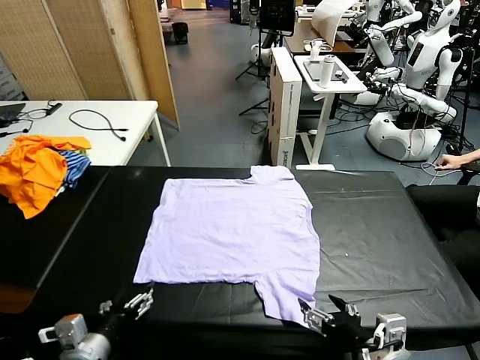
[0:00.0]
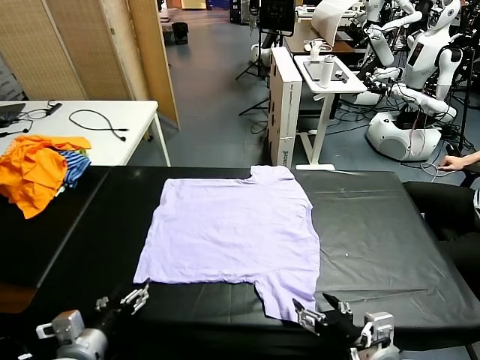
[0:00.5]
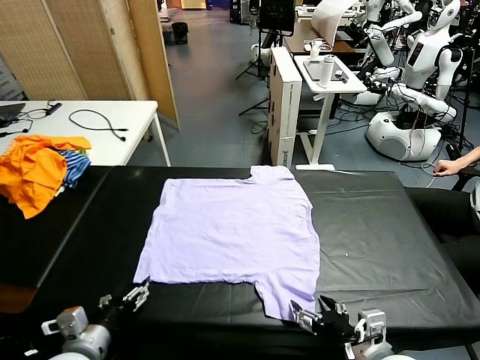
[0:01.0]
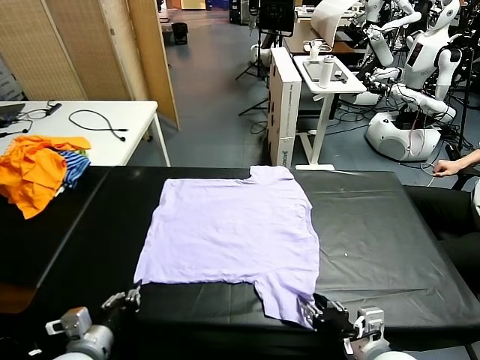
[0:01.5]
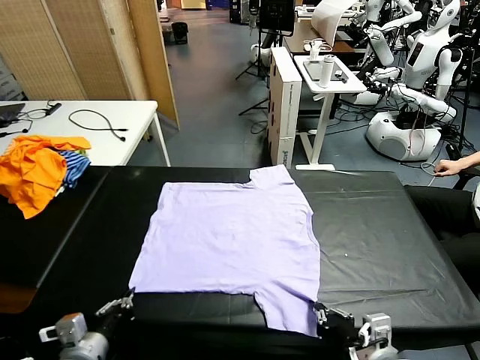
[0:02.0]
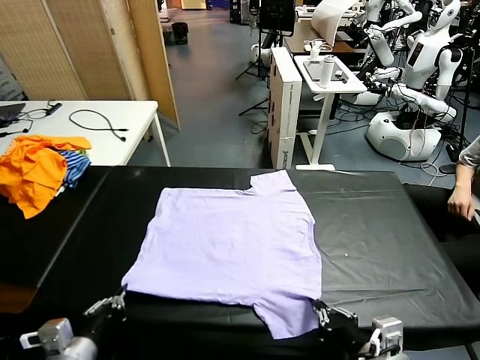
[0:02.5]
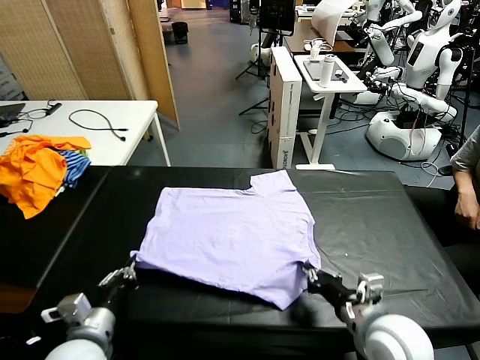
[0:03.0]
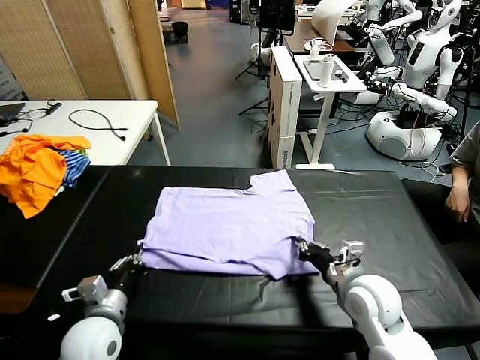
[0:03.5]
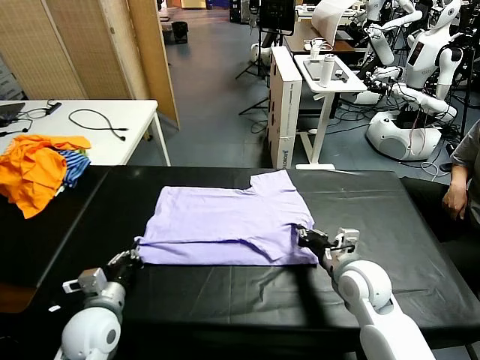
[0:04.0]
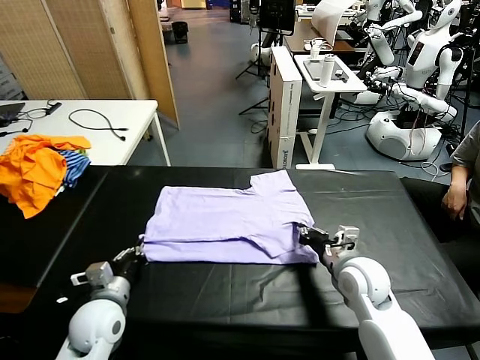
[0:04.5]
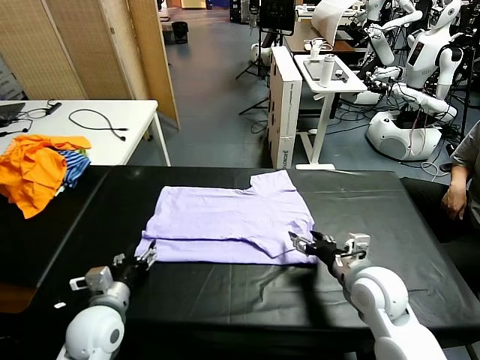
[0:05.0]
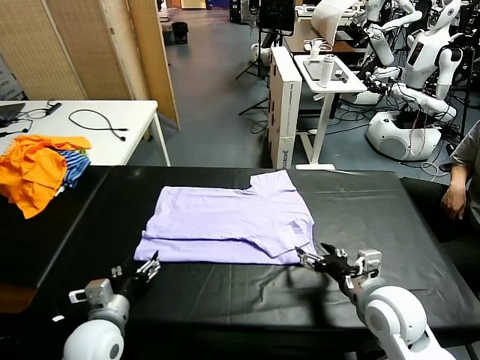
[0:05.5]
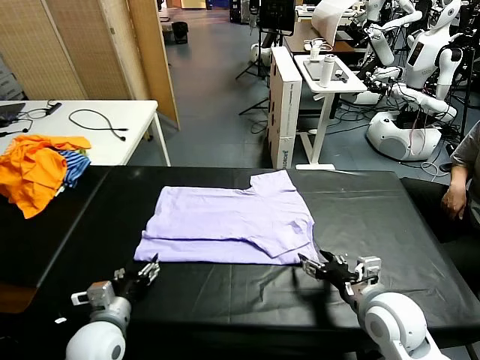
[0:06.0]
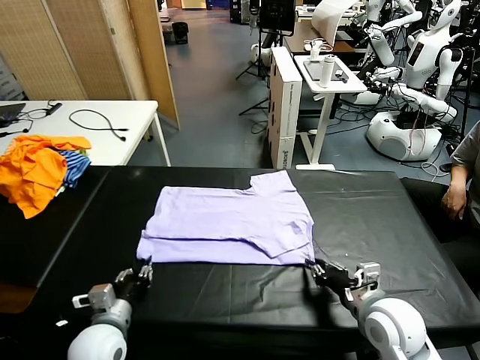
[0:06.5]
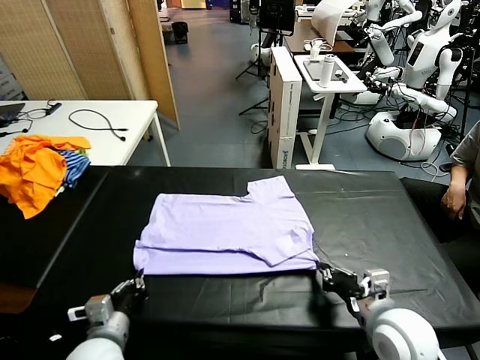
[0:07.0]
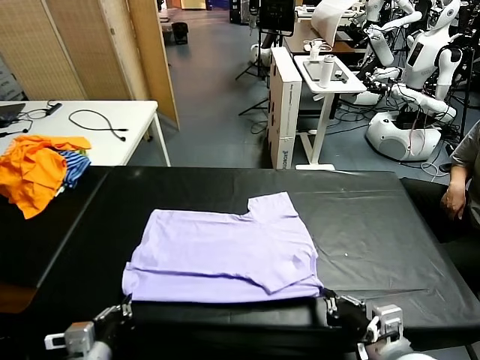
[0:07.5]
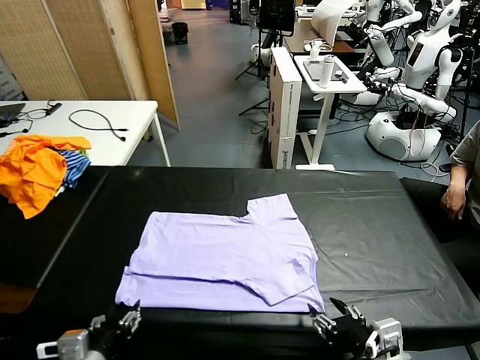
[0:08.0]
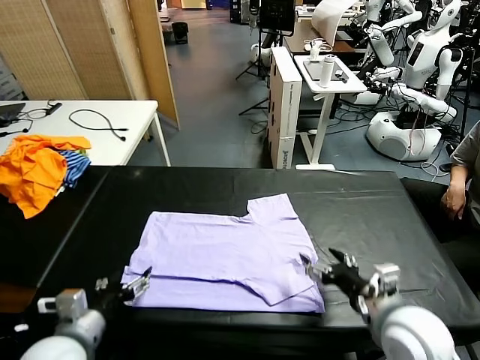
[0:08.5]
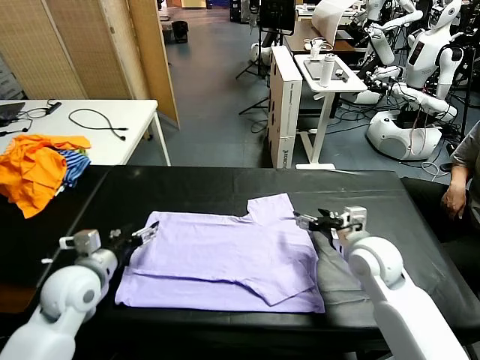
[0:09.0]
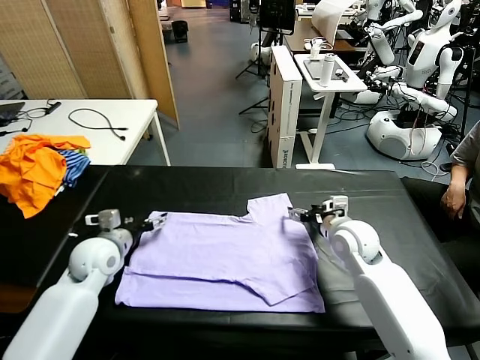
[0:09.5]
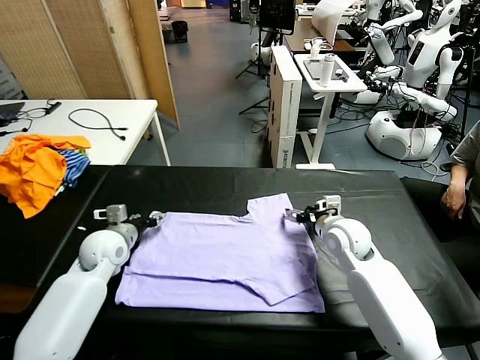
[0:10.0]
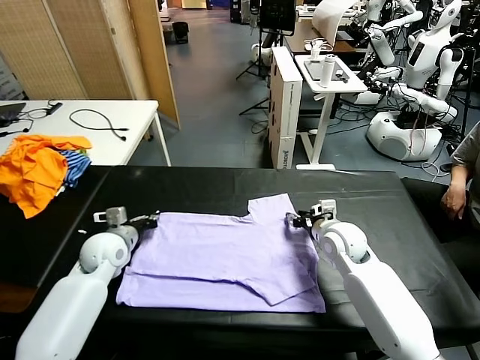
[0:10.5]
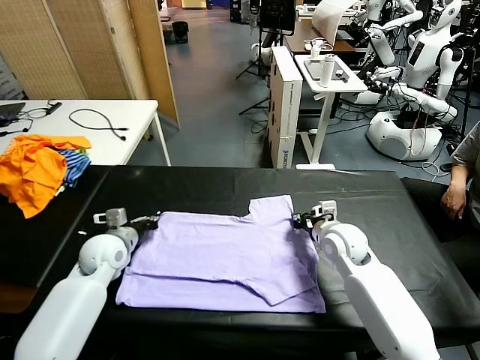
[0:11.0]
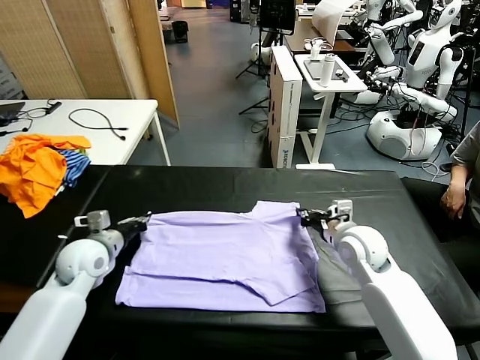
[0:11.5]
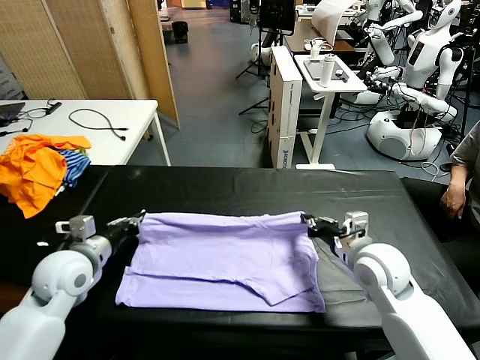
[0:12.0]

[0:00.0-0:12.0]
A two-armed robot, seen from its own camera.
Task of the whole recording: fold and organize the clothes.
Step, 0:00.0 to 0:01.5: use both grippers simultaneously to clamp the lower edge of the clothing fabric.
Step, 0:02.0 to 0:05.0: use both grippers to drag the lower edge of the fabric forward and fold it over the upper edge.
Step, 0:05.5 to 0:08.0: Drag the clothes downward with both gripper.
Step, 0:08.5 to 0:10.5: use both grippers simultaneously to clamp the upper edge of the clothing fabric.
0:02.0 to 0:04.0: The right gripper goes about 20 cm forward, while the left gripper shifts about 10 cm forward.
0:04.0 to 0:06.0: The left gripper opens up. The right gripper heads backward, covering about 10 cm, and opens up.
0:06.0 to 0:08.0: The grippers both shift backward and upward by roughly 10 cm. The left gripper closes and opens again. The right gripper closes, then reopens.
0:08.0 to 0:10.0: Both grippers travel together forward, some 30 cm.
0:10.0 to 0:12.0: The right gripper travels backward by roughly 10 cm, and closes its fingers. Meanwhile the left gripper goes roughly 10 cm backward and upward, and closes.

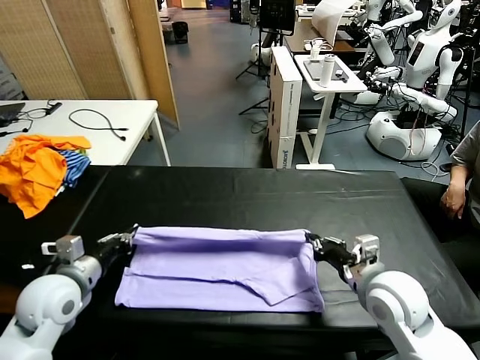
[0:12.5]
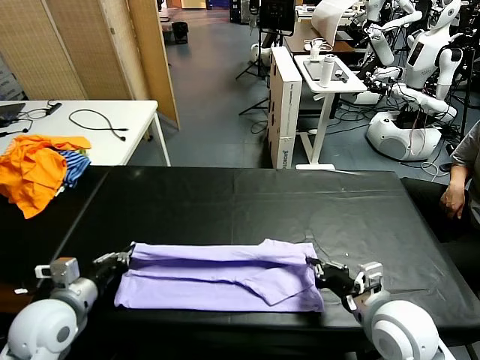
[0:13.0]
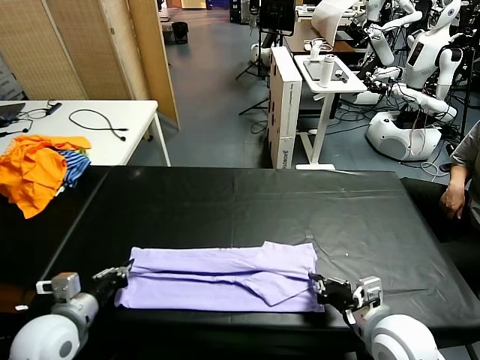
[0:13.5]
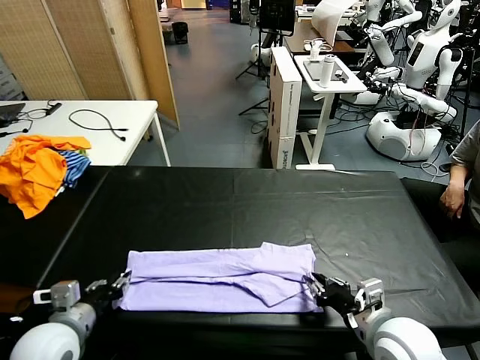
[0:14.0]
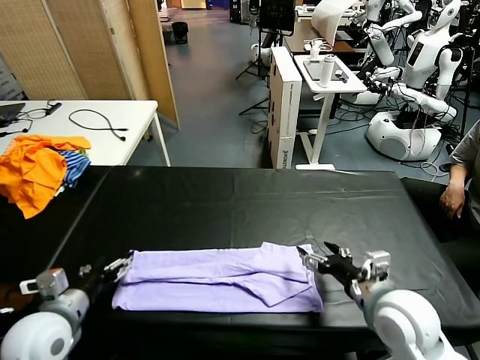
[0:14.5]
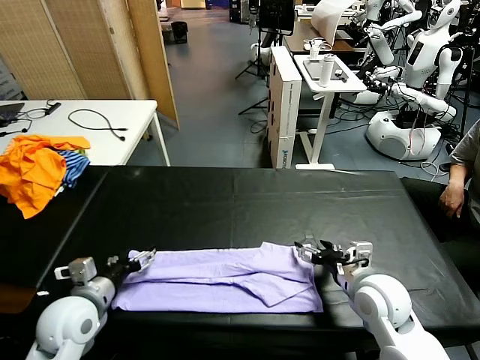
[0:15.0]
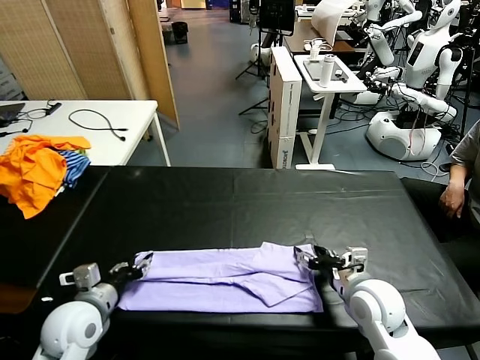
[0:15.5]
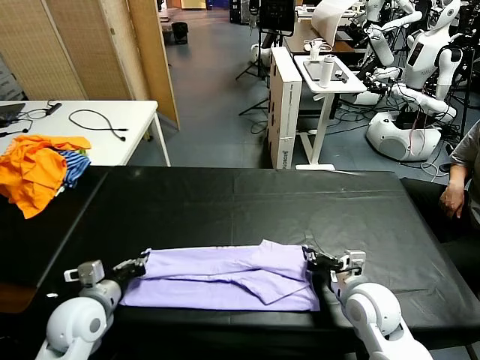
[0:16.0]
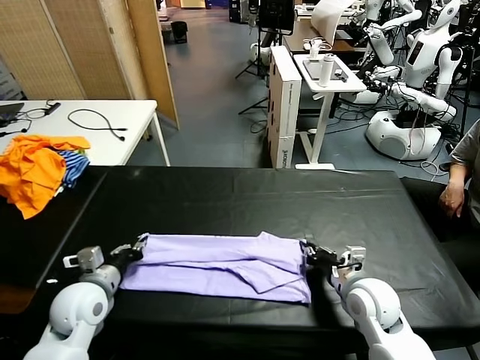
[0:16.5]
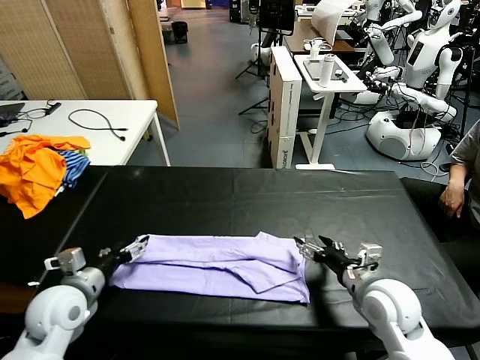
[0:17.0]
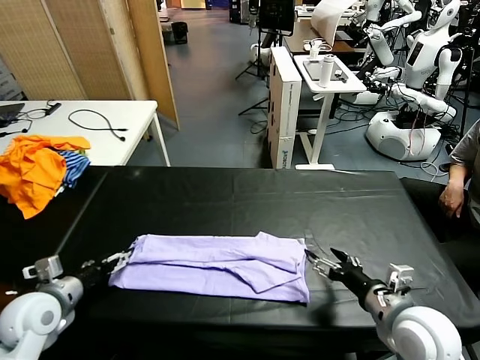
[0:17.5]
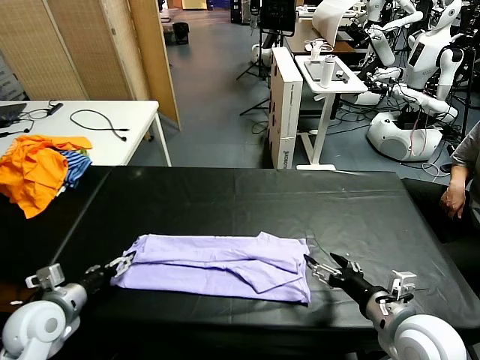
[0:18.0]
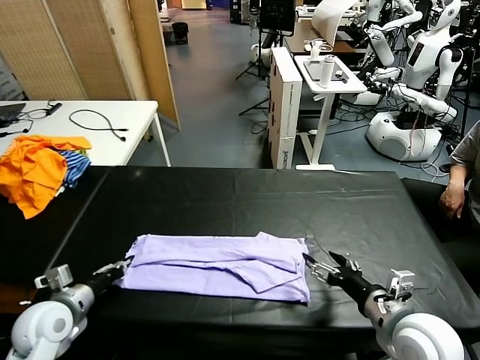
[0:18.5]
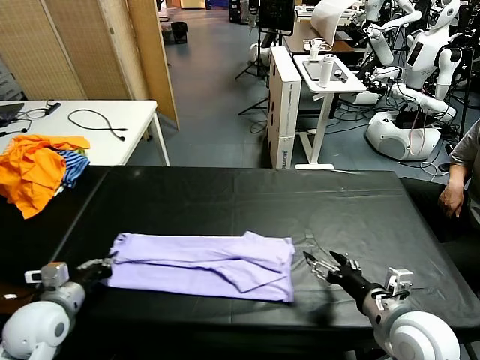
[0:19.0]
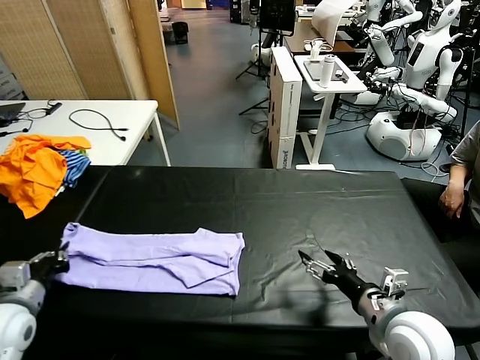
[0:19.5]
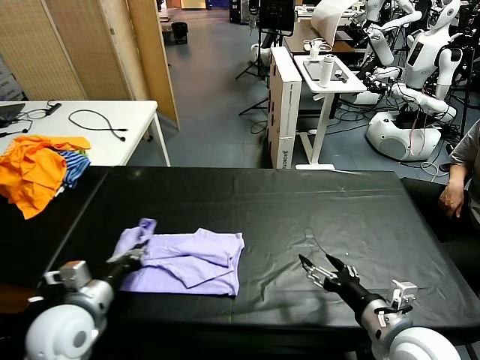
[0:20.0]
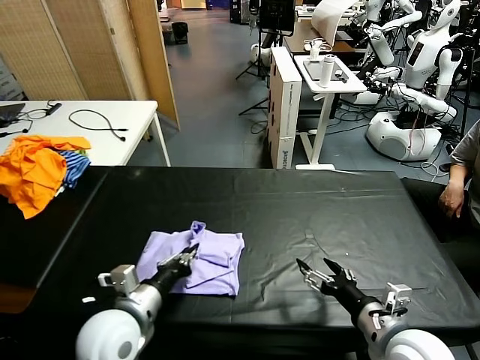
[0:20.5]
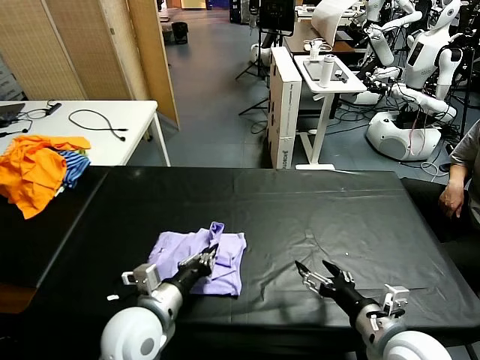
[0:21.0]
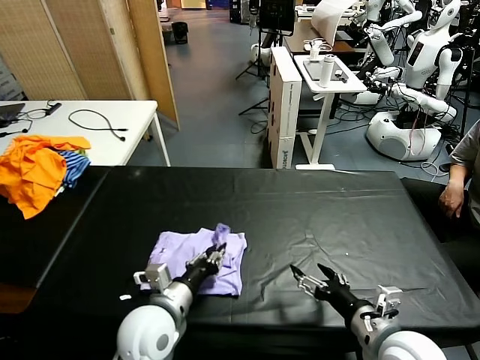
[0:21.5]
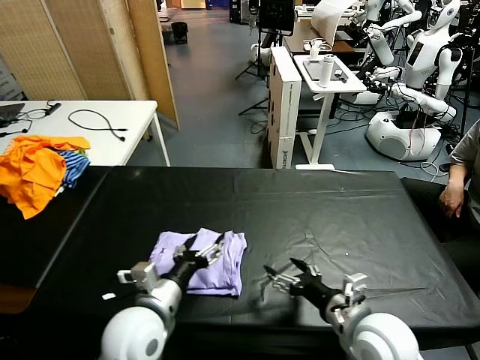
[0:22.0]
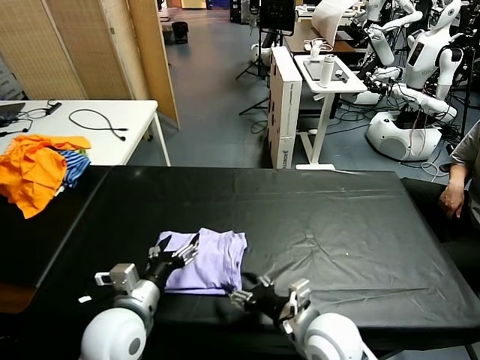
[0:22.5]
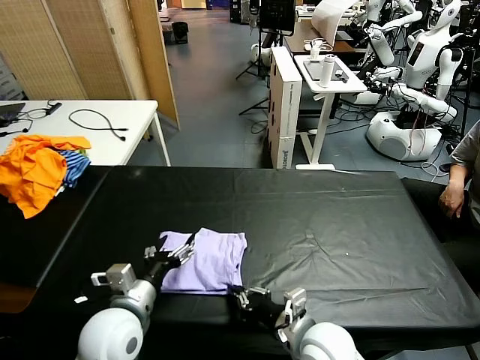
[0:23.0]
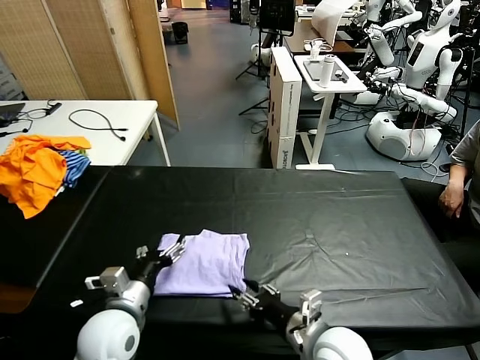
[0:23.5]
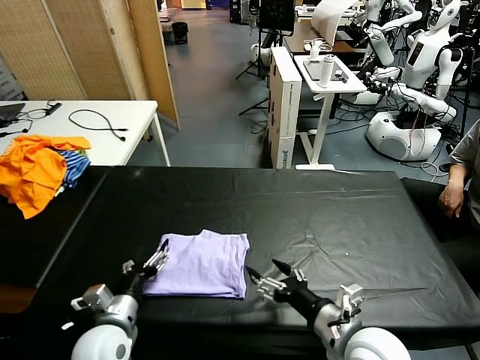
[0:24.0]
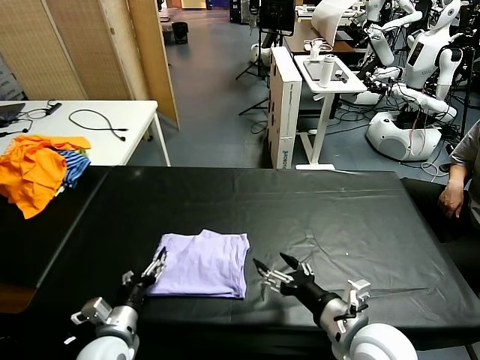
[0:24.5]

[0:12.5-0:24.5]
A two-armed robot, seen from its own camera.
Task of the whole recording: fold and organize the clothes.
Step, 0:12.5 to 0:17.0: use both grippers to drag the upper edge of the fabric backward and fold it over the lower edge.
Step, 0:17.5 to 0:18.5: use the left gripper to clamp the left edge of the fabric.
Step, 0:19.0 to 0:23.5: use the left gripper to drag the left edge of the fabric to the left and folds it over the right edge.
0:12.5 to 0:14.5: The right gripper opens. The left gripper moves backward, some 5 cm, and opens its fingers.
0:14.5 to 0:16.5: The right gripper travels downward by about 5 cm, and closes. The left gripper moves forward, roughly 5 cm, and closes.
0:16.5 to 0:18.5: The left gripper shifts approximately 5 cm to the left, and opens, then closes once more, while the right gripper heads backward and upward, covering roughly 10 cm, and opens up.
0:18.5 to 0:20.5: The left gripper is displaced to the right by roughly 15 cm.
0:20.5 to 0:22.5: The right gripper is displaced to the left by approximately 10 cm. Meanwhile the left gripper opens up.
0:22.5 to 0:24.5: The left gripper moves downward and to the left, some 10 cm, while the right gripper goes roughly 5 cm to the right, and closes and opens again.

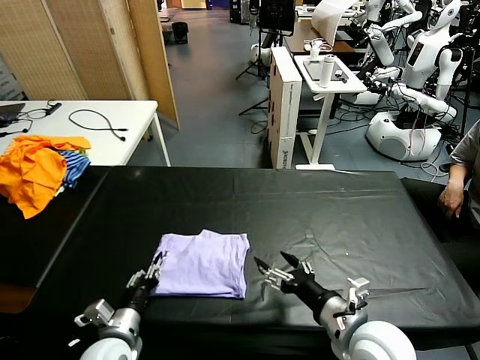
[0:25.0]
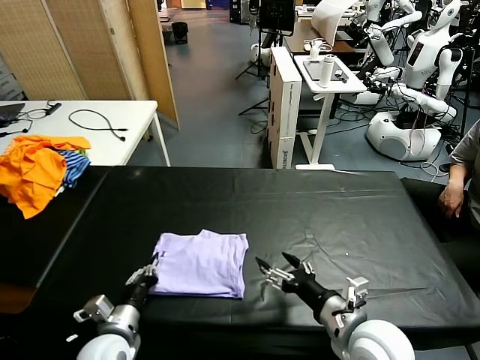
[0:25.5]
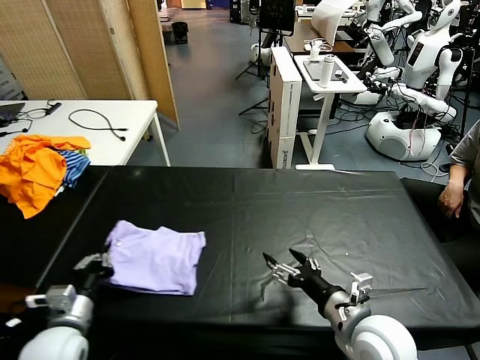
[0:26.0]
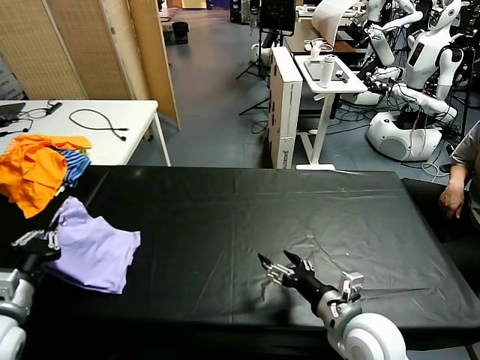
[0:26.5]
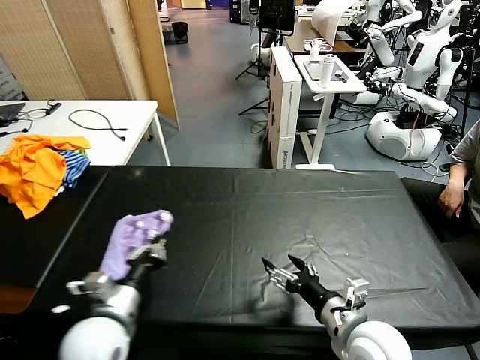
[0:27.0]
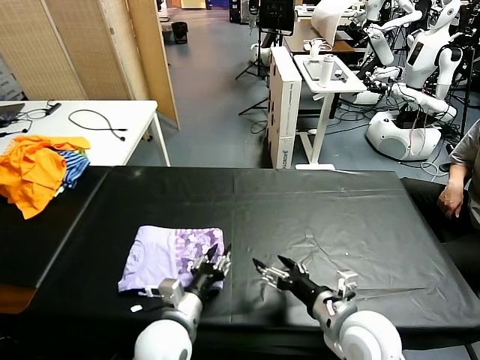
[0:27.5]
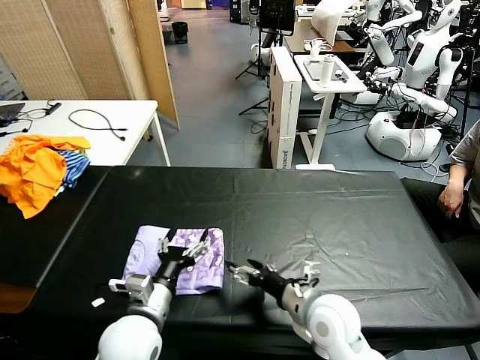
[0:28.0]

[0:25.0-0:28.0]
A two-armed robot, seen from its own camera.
Task of the whole recording: fold and organize the clothes.
Step, 0:25.0 to 0:27.5: Flip the folded clothes over with left gripper.
0:25.0 to 0:26.5: The left gripper shifts some 20 cm upward and to the left, and closes.
0:26.5 to 0:28.0: The left gripper shifts about 20 cm to the right, and opens; the right gripper changes place by about 5 cm.
